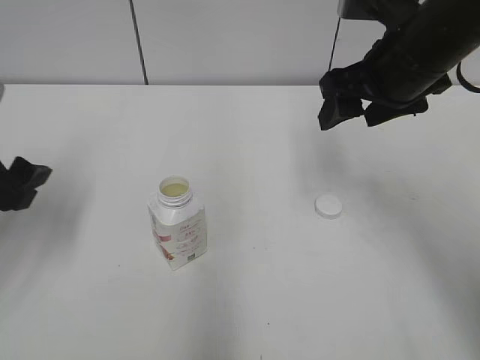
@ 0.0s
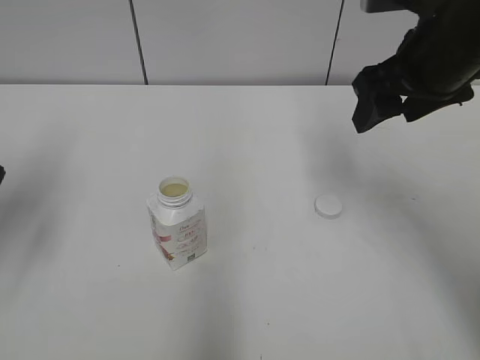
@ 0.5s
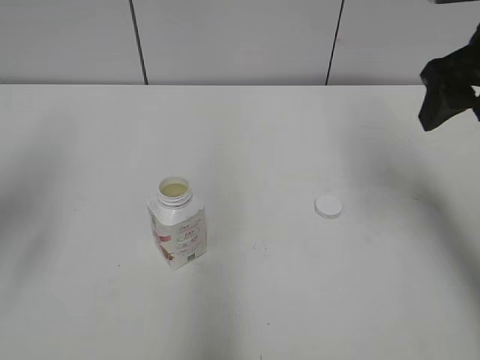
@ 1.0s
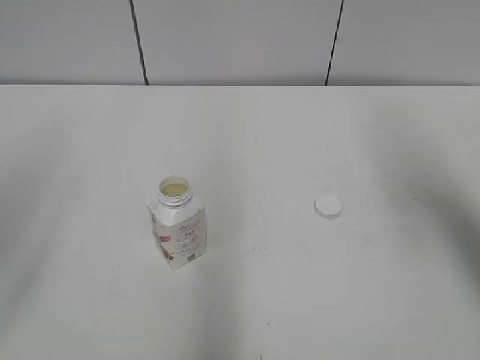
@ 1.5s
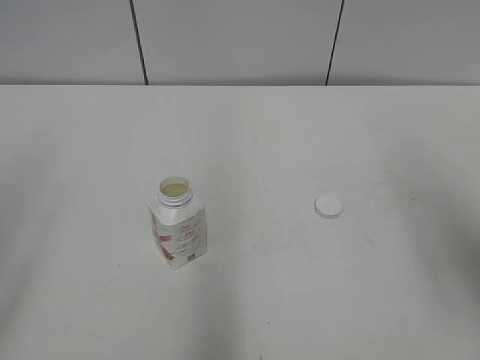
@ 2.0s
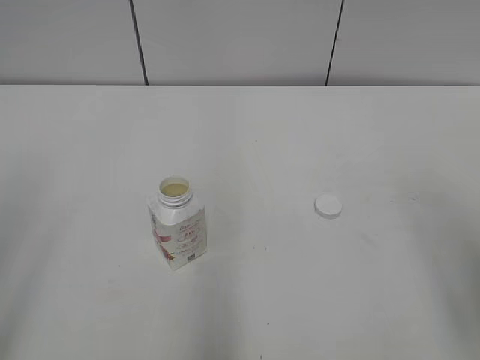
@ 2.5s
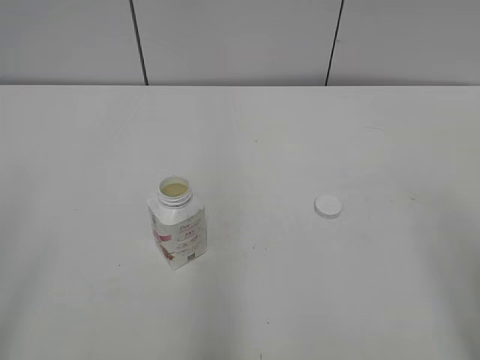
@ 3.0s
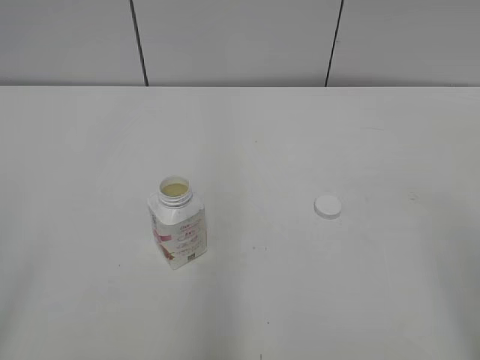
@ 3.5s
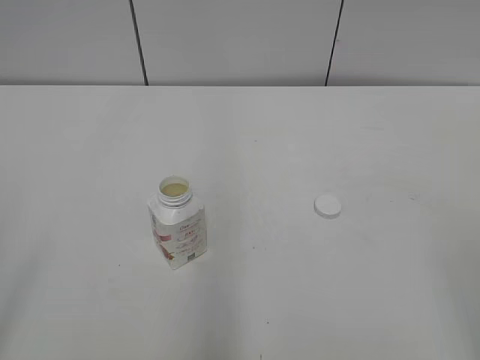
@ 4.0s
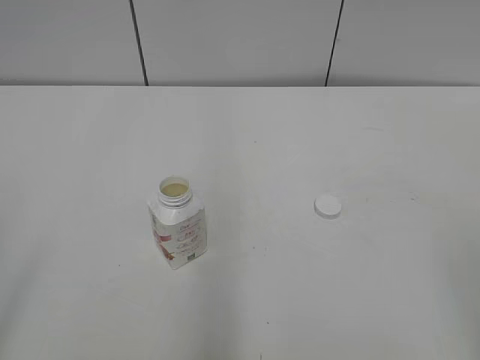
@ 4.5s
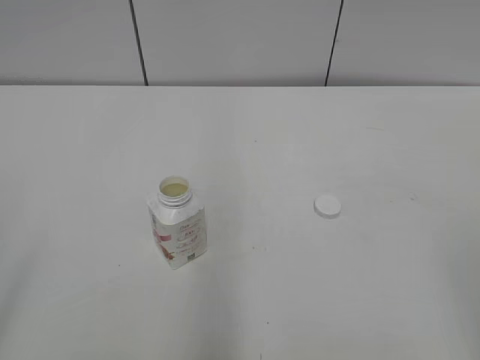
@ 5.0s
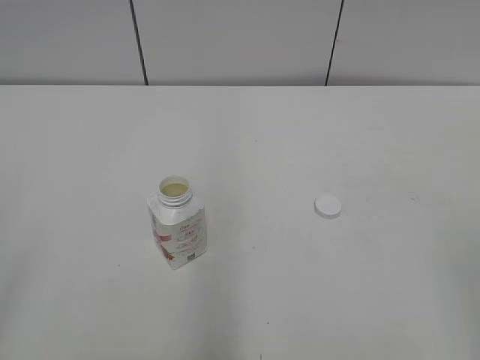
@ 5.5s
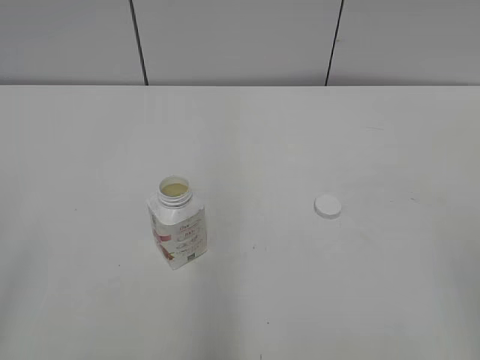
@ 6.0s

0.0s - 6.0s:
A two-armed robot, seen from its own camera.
0.0s - 2.0s: The right gripper is displaced backward and to the right by about 20 cm, while the left gripper is displaced backward and upward by roughly 20 cm.
2.0s - 4.0s: The right gripper goes about 15 cm backward.

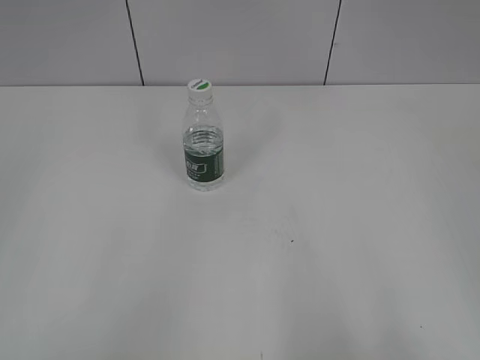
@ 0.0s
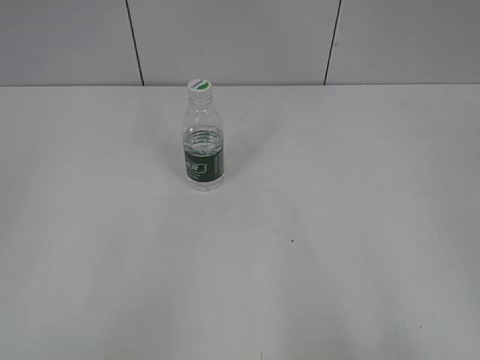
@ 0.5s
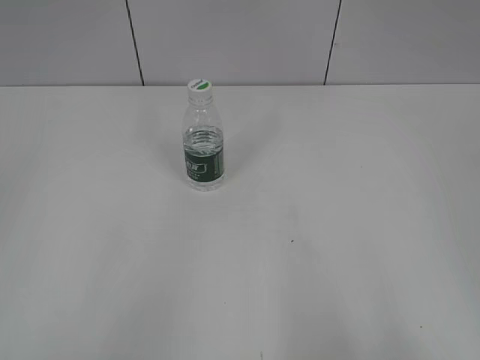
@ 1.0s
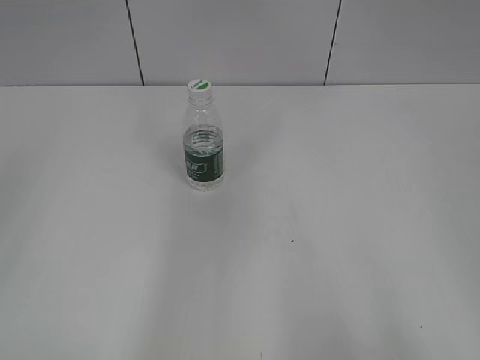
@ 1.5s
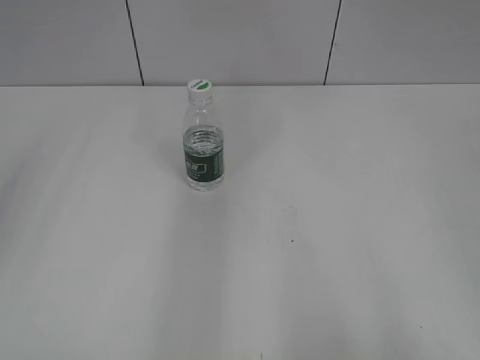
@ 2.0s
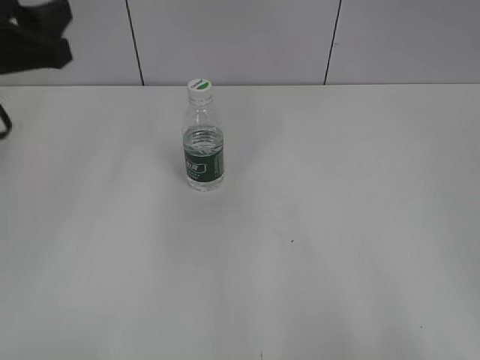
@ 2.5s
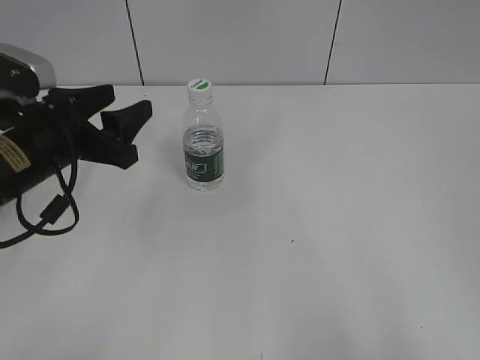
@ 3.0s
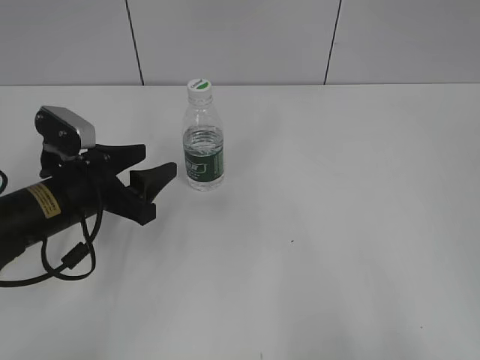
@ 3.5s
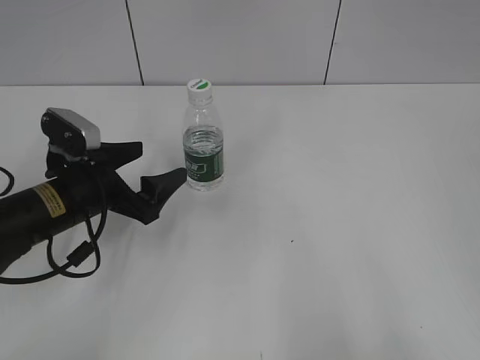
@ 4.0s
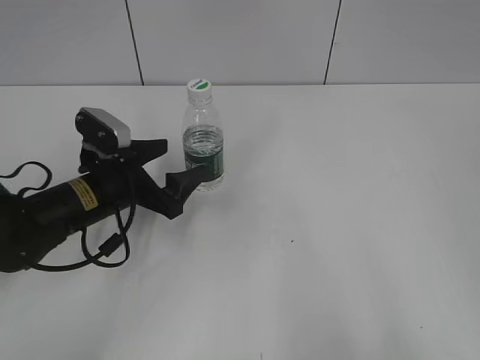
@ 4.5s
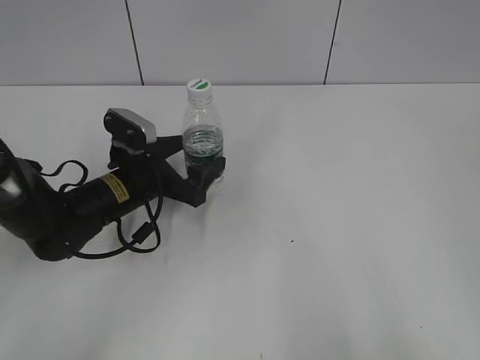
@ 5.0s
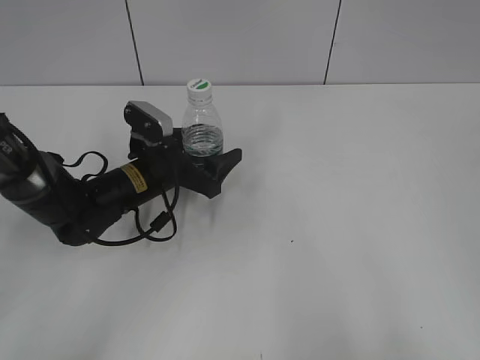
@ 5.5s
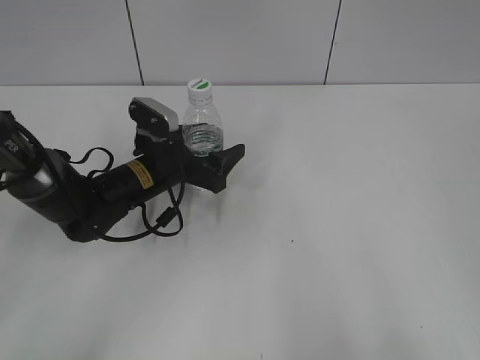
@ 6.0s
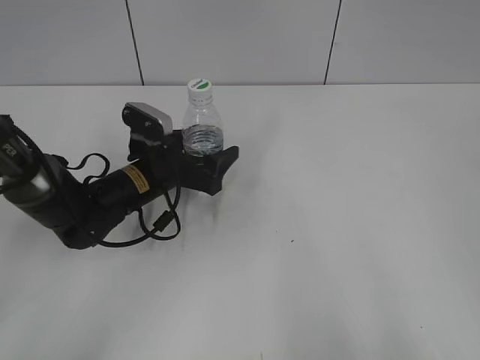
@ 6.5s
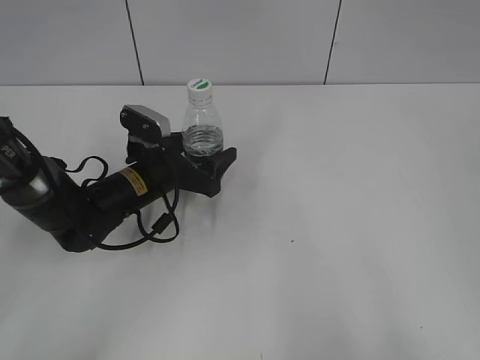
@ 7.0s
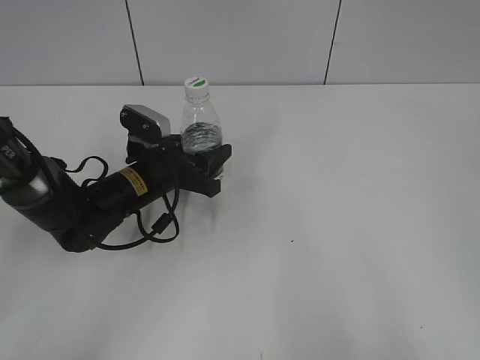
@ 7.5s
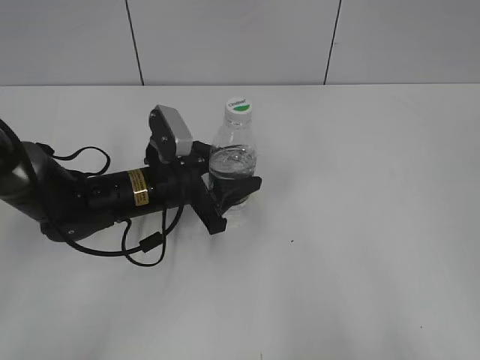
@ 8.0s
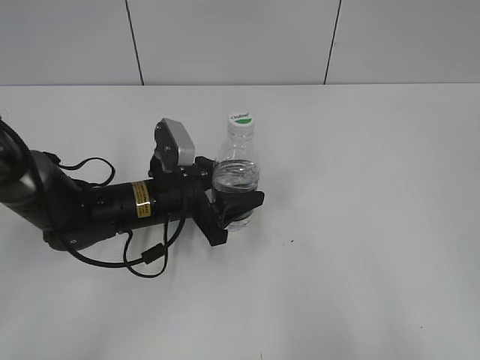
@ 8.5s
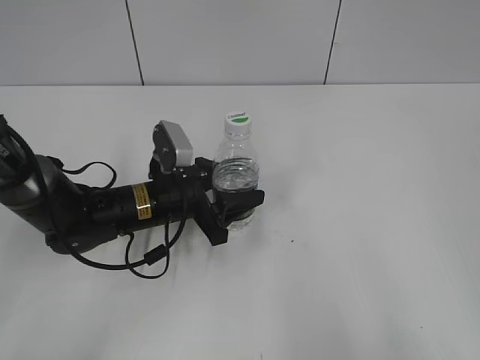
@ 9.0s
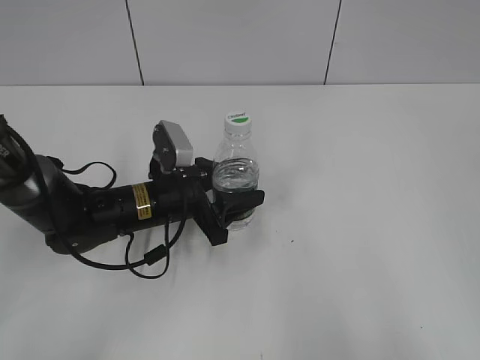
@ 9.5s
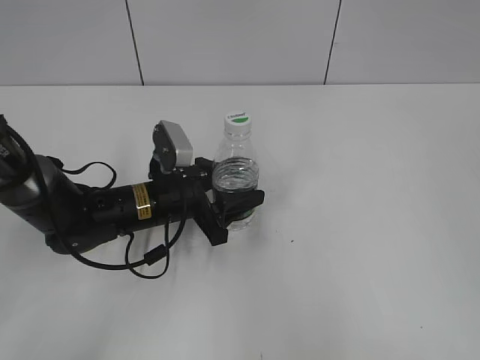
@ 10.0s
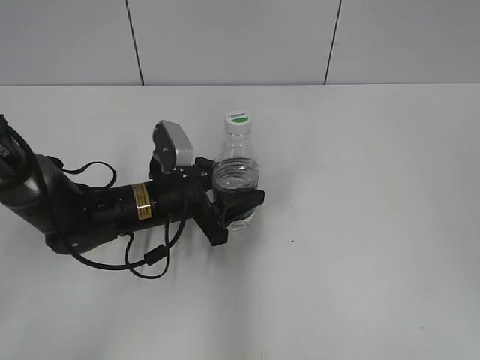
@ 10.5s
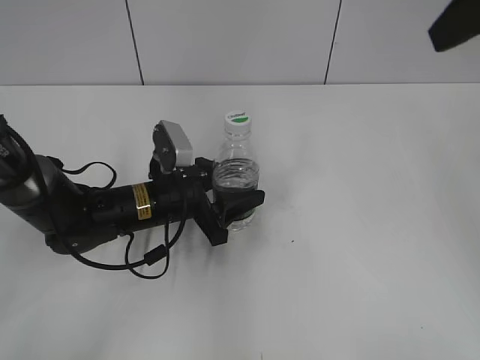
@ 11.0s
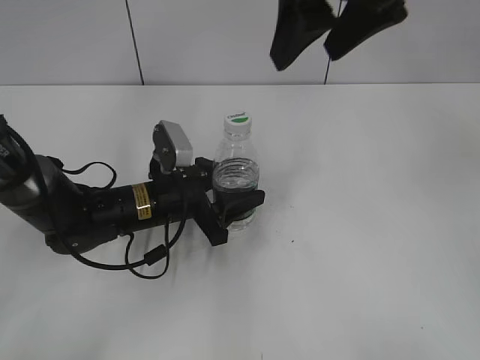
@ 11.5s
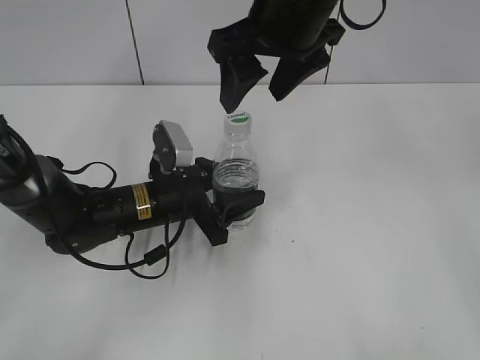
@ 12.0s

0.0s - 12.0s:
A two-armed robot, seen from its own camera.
Step, 0.0s - 7.0s: Grasp the bottle and move it to the center of the table with the left gripper.
Step, 7.5s - 10.5s: Lift the bottle and move it to the center of the table with the left gripper.
2.0s - 4.0s: The left gripper shifts roughly 30 cm downward and forward, and opens.
4.0s - 6.0s: The left gripper heads forward and to the right, covering about 10 cm.
6.0s - 8.0s: The left gripper closes.
8.0s - 10.0s: The grippers make only small movements.
10.0s - 12.0s: The right gripper travels forward and to the left by some 40 cm.

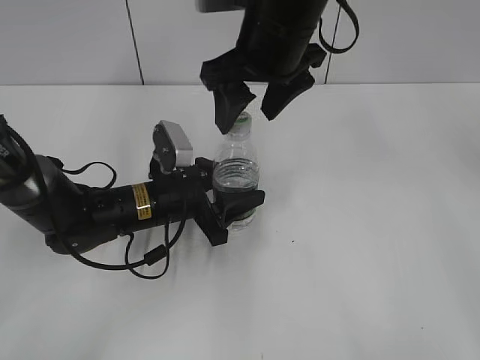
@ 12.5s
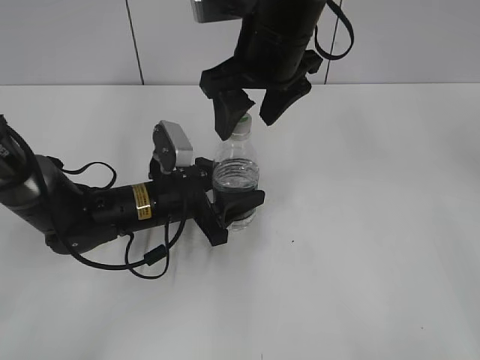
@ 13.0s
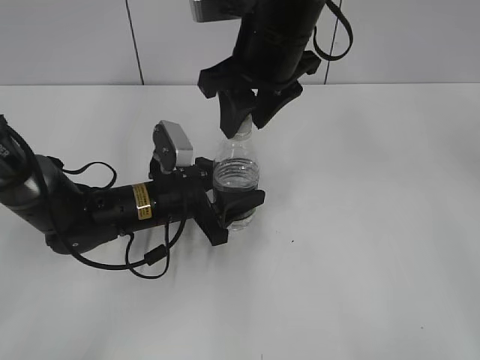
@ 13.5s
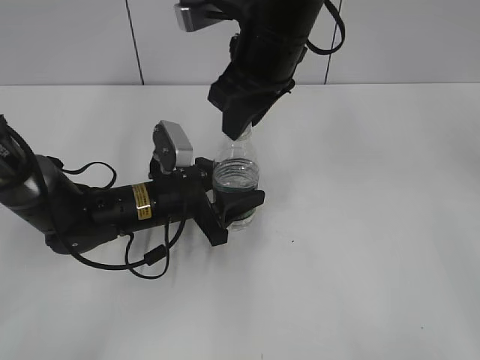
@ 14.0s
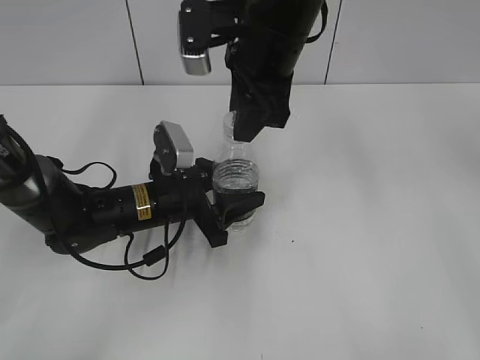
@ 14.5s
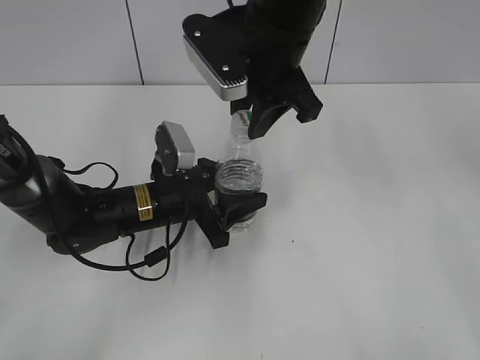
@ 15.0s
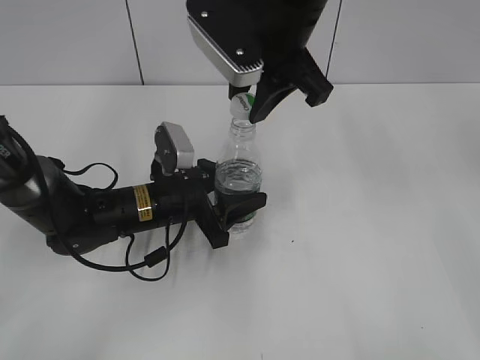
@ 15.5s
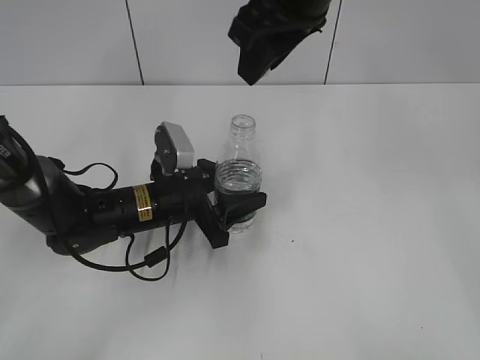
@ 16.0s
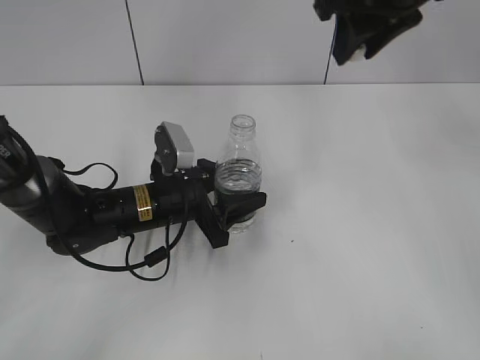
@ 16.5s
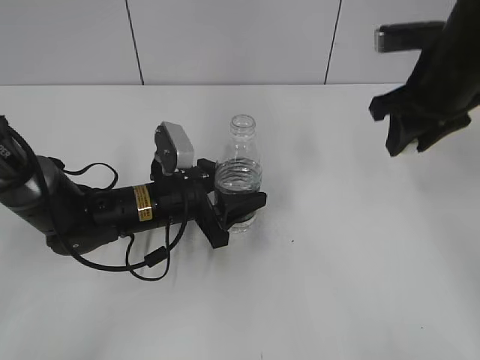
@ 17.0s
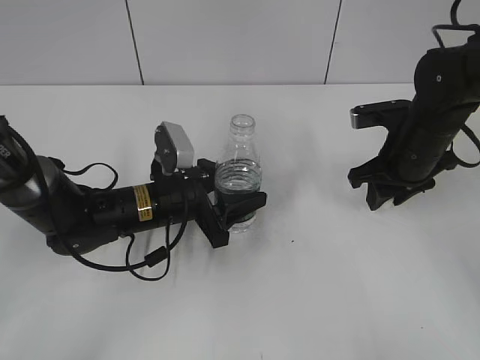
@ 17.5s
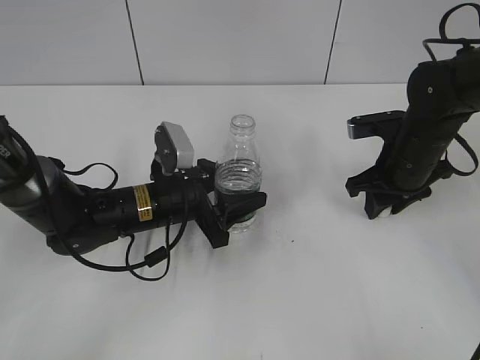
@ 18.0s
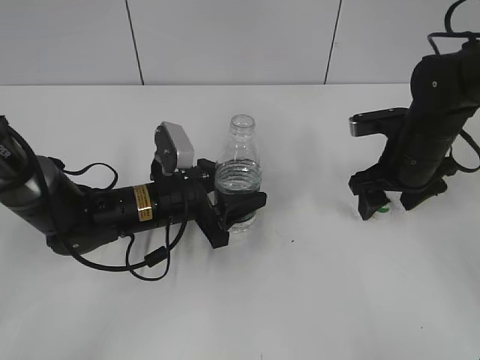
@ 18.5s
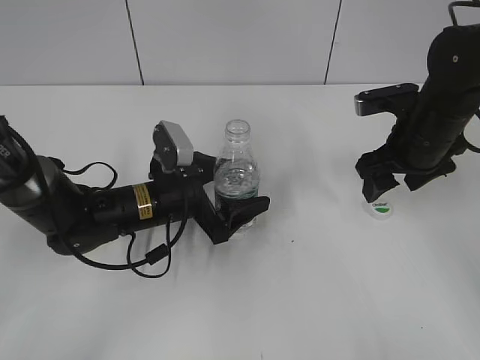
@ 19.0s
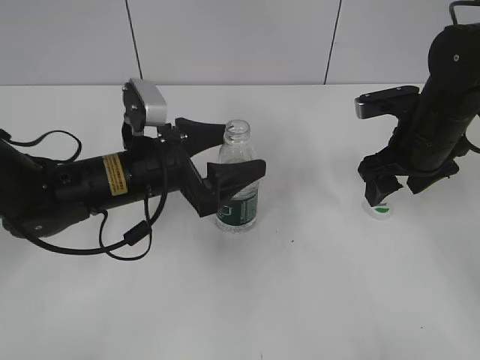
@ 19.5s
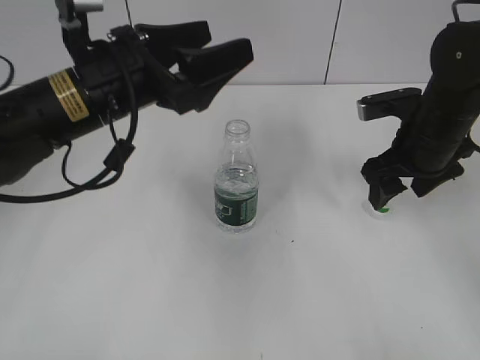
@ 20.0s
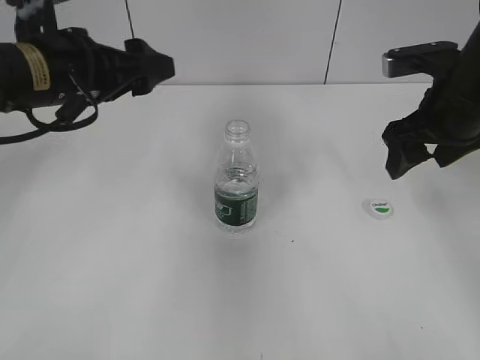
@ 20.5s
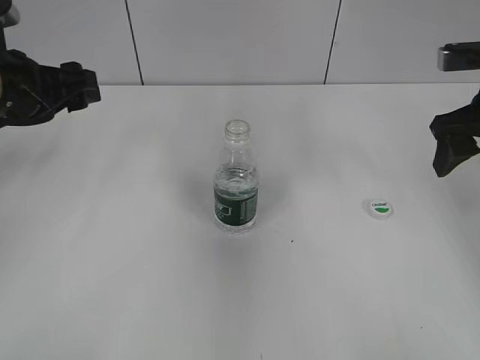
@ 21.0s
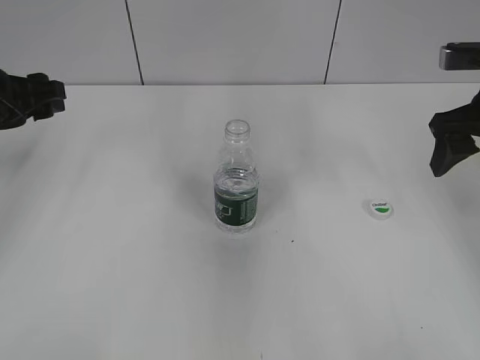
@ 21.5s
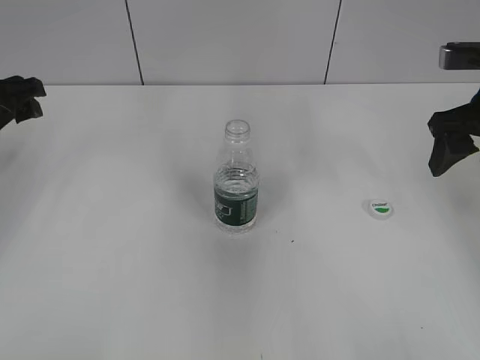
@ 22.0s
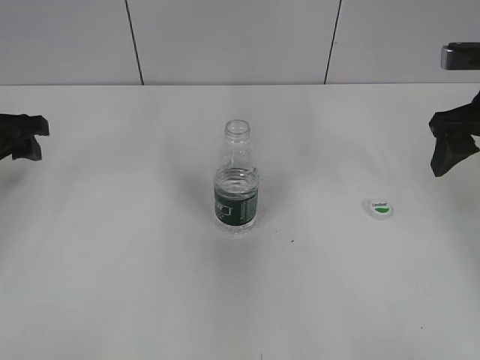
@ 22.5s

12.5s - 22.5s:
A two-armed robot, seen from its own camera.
Step, 12.5s - 15.5s: Unscrew the bottle cap with the right gripper while holding the bottle with the left gripper.
Step, 16.0s - 18.5s: Place the bottle cap on the table with the right gripper.
Step, 19.0s - 19.5s: Place the bottle on the table with the left gripper.
12.5s - 14.5s: The right gripper closes up.
14.5s - 16.5s: The right gripper is displaced to the right and upward by roughly 10 cm.
16.5s - 18.5s: The right gripper shifts some 20 cm downward, and opens.
18.5s - 20.5s: The right gripper goes roughly 10 cm upward. The left gripper travels upward by about 20 cm, and opens up.
20.5s - 22.5s: The right gripper shifts about 5 cm to the right. Meanwhile the left gripper shifts some 15 cm to the left.
